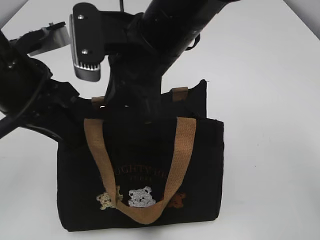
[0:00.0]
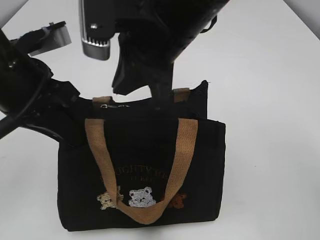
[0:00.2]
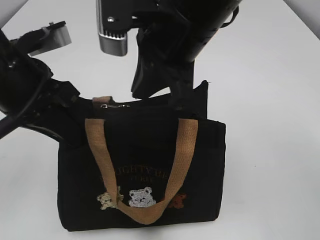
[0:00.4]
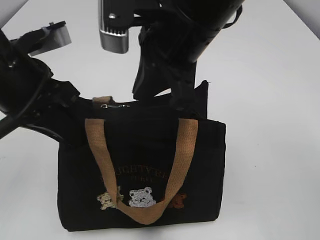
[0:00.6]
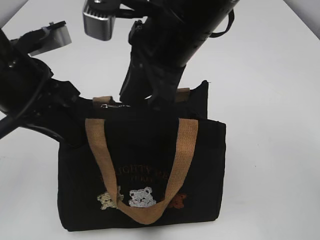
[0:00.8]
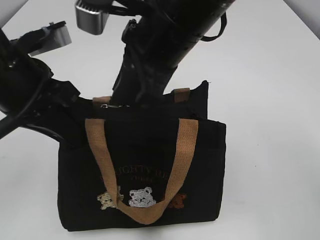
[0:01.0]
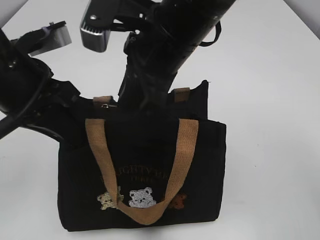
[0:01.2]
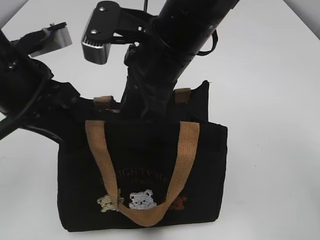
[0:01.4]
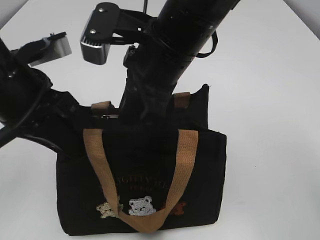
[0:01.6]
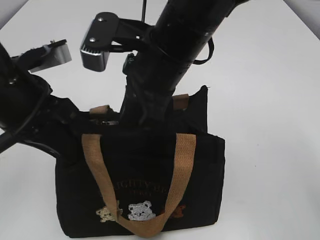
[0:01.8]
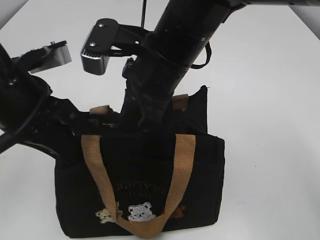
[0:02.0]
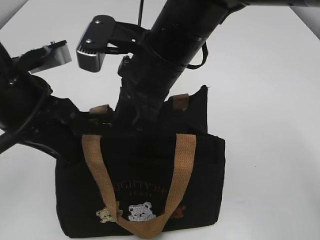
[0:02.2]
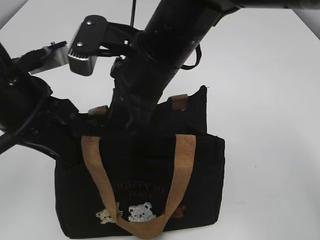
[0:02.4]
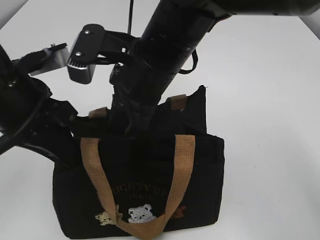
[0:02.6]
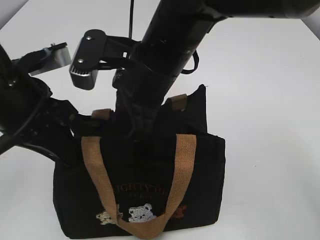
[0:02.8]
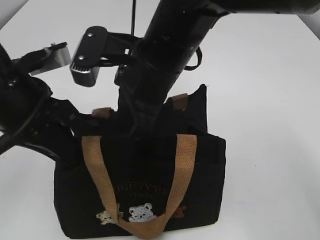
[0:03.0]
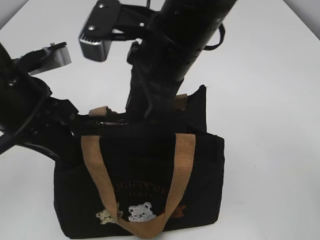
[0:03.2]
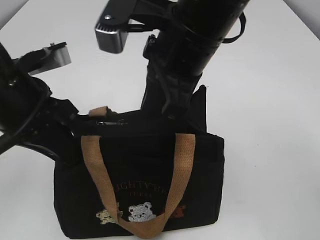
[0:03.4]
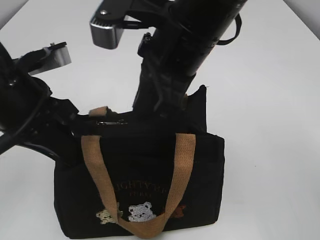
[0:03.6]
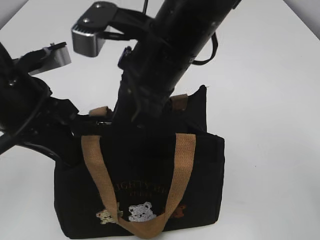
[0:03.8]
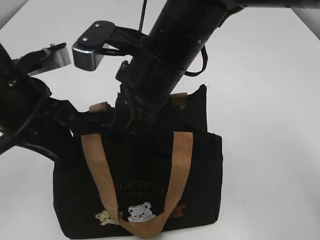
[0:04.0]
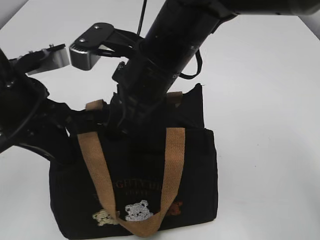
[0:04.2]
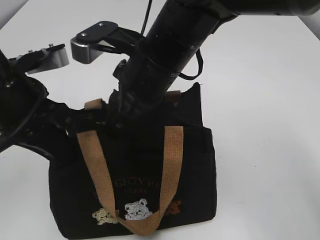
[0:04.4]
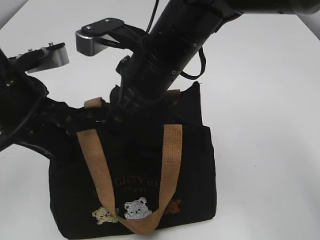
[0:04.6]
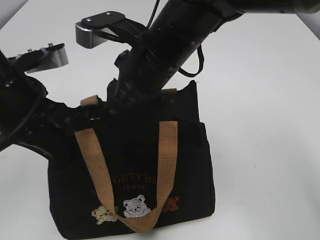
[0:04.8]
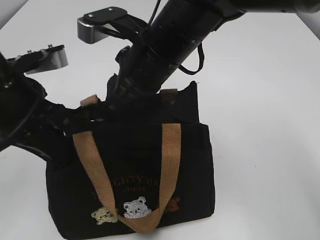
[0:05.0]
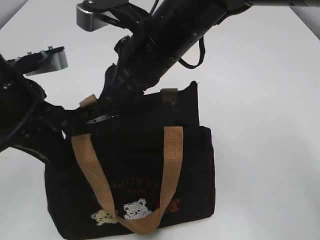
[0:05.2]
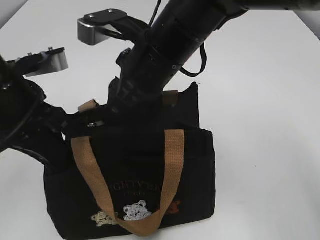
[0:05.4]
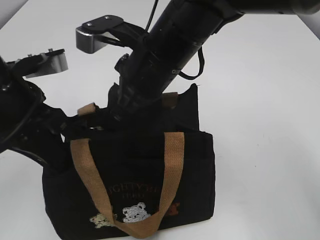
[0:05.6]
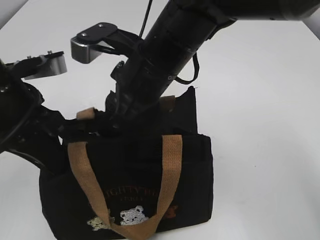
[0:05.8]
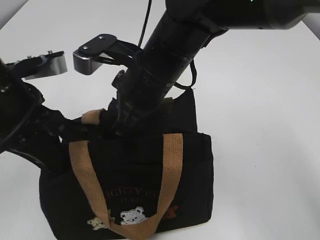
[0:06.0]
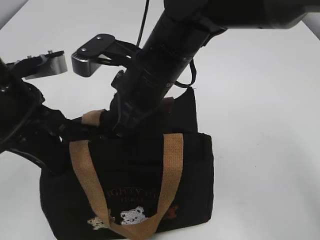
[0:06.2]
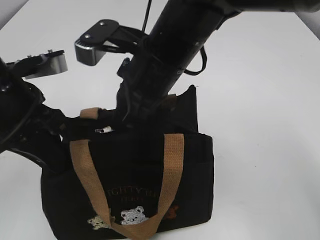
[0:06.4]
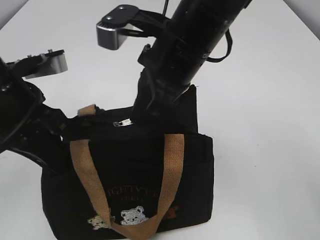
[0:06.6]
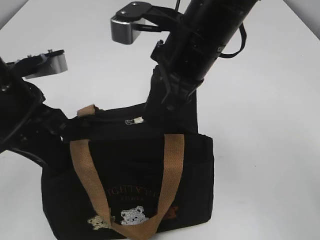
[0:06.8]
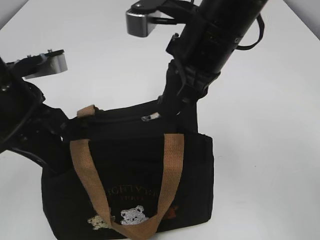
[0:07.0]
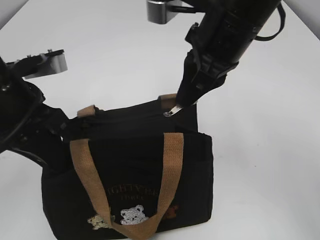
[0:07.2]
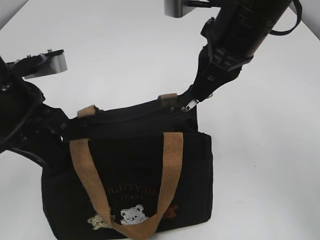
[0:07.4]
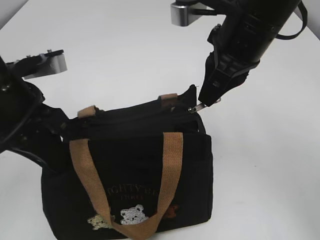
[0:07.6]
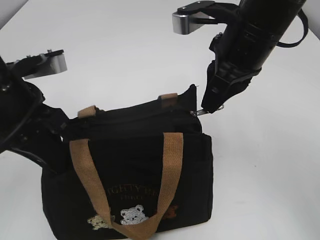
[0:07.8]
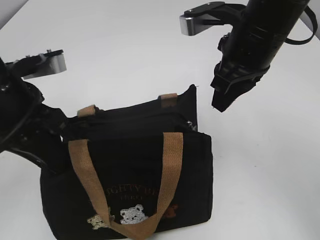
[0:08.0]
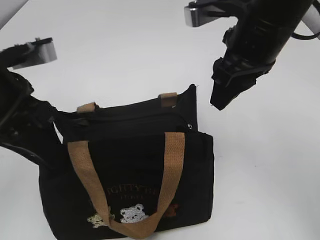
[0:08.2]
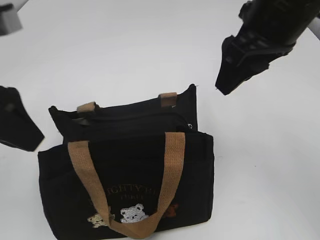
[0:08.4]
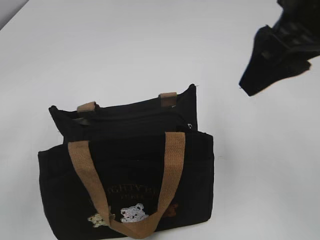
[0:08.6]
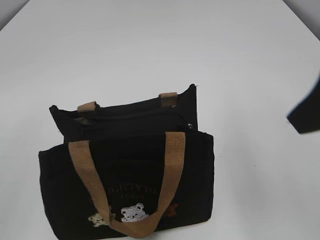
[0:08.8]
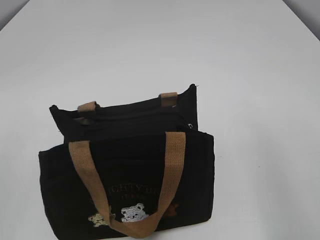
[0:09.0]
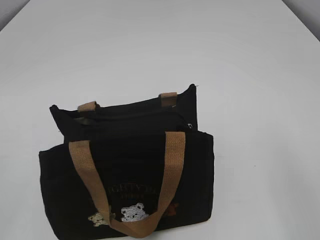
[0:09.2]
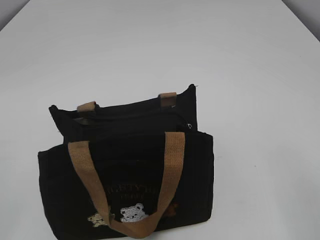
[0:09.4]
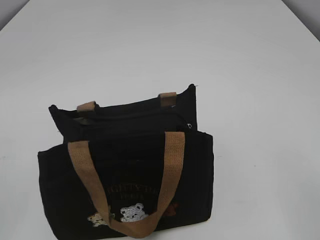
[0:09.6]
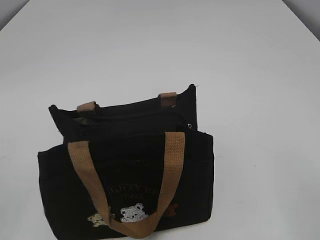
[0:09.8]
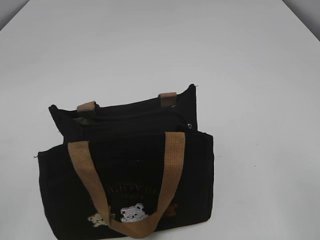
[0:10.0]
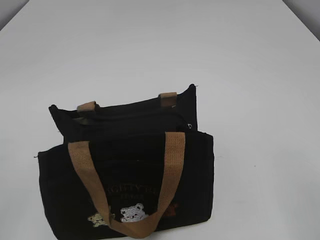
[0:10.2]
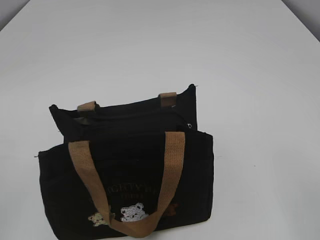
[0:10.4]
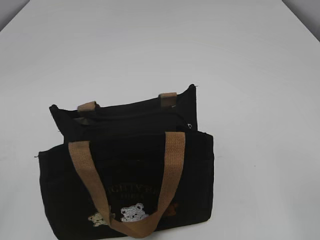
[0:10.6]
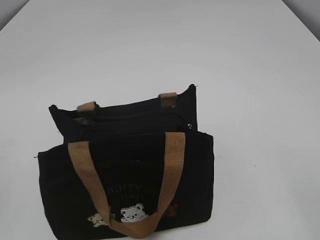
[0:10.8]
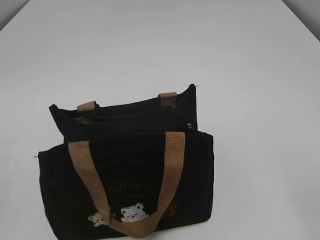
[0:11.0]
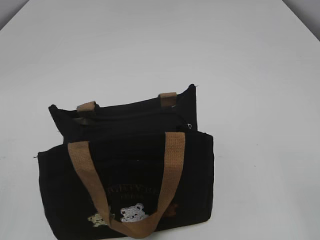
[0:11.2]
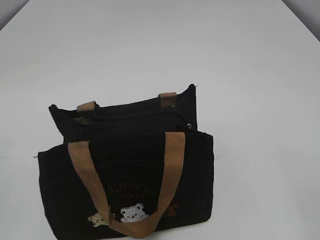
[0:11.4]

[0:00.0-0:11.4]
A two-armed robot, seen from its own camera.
Step, 0:00.0 to 0:08.0: Pull open the zipper with your right hand.
0:04.2 to 0:05.6: The grippers make only small movements.
0:05.6 to 0:07.2: The right gripper goes approximately 10 cm to the right, and closes.
0:07.2 to 0:08.6: The left gripper heads upward, backward and to the left, covering roughly 15 cm, and opens its fingers; the right gripper goes roughly 10 cm to the right, upward and backward, and opens.
0:08.6 to 0:10.0: The right gripper shifts roughly 25 cm backward and to the right.
